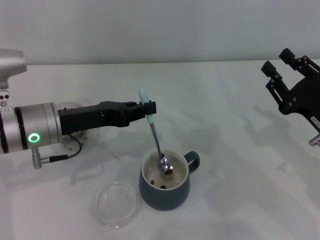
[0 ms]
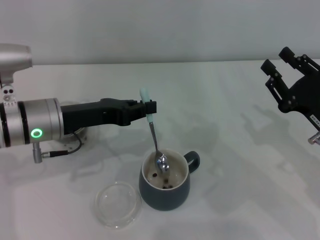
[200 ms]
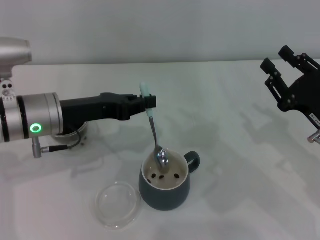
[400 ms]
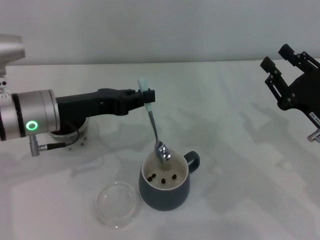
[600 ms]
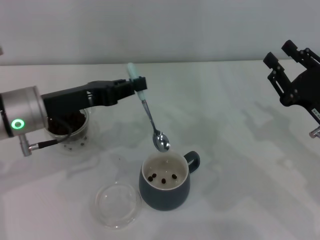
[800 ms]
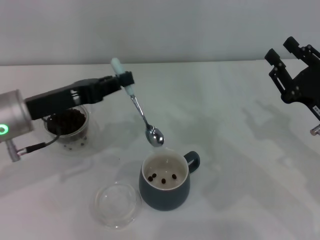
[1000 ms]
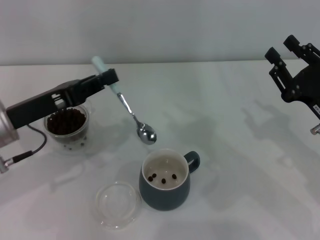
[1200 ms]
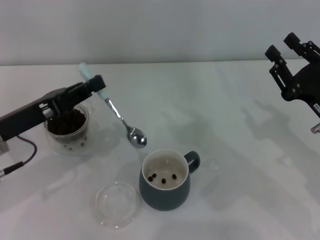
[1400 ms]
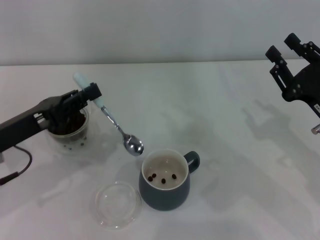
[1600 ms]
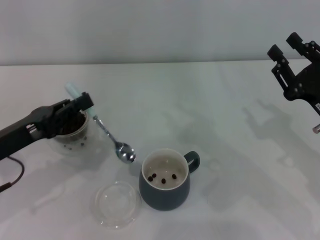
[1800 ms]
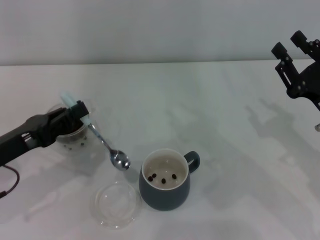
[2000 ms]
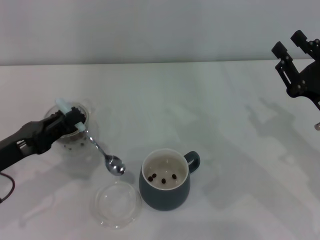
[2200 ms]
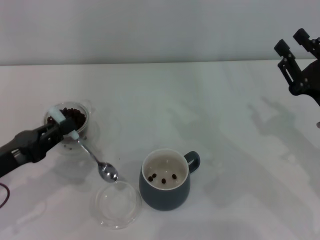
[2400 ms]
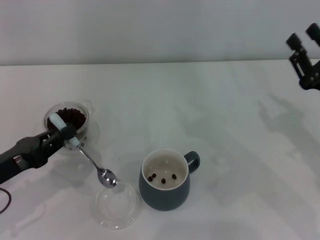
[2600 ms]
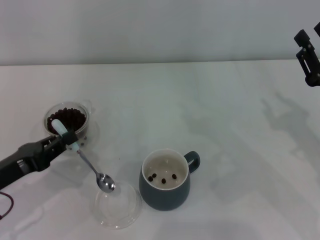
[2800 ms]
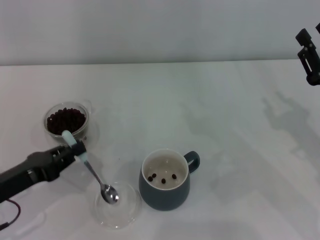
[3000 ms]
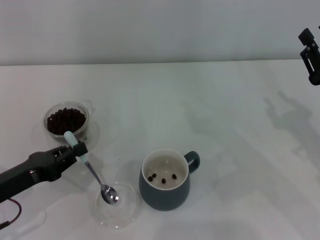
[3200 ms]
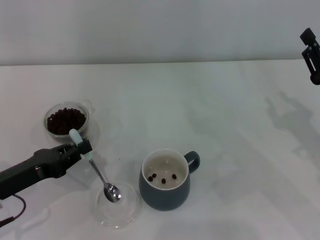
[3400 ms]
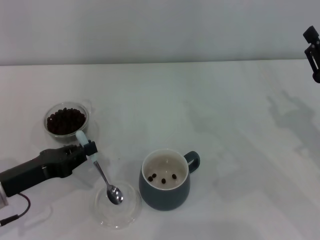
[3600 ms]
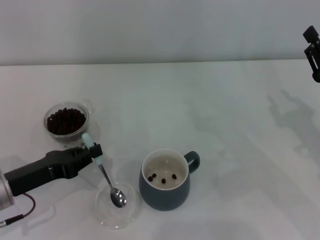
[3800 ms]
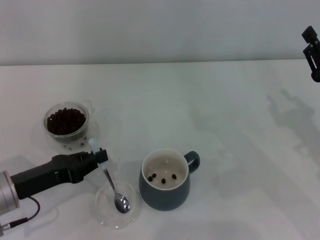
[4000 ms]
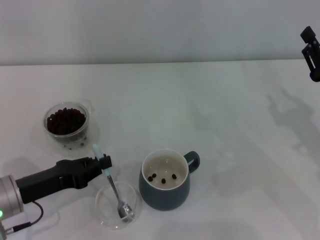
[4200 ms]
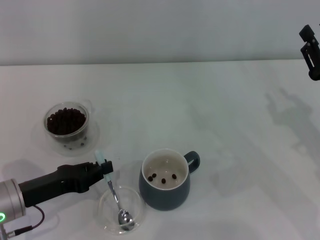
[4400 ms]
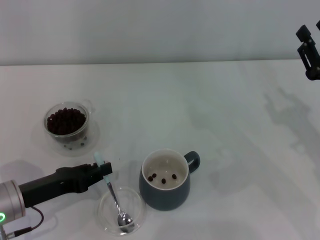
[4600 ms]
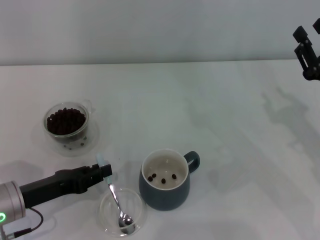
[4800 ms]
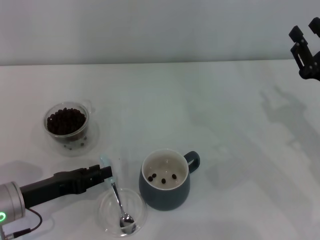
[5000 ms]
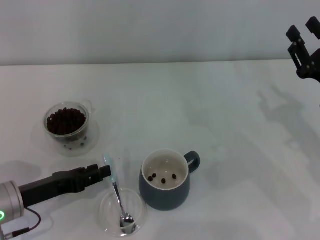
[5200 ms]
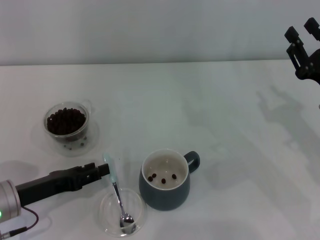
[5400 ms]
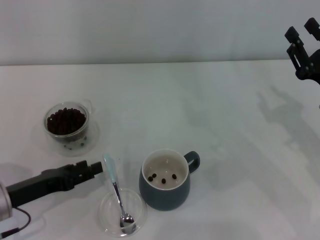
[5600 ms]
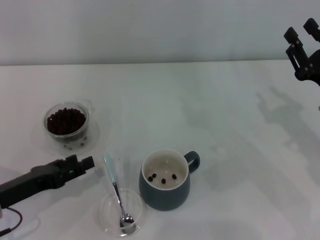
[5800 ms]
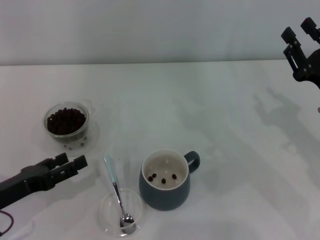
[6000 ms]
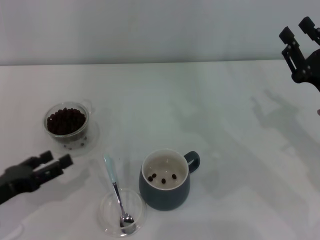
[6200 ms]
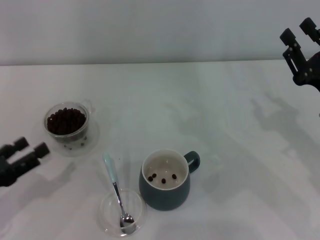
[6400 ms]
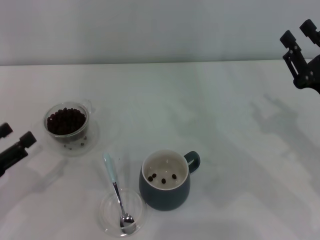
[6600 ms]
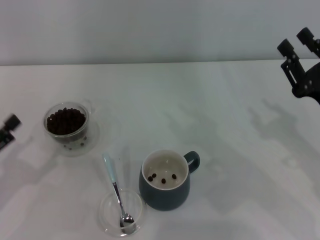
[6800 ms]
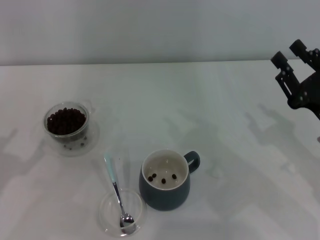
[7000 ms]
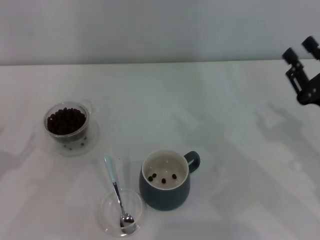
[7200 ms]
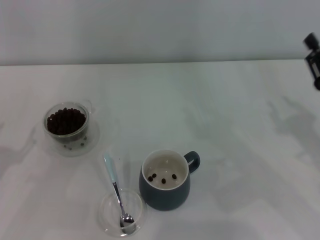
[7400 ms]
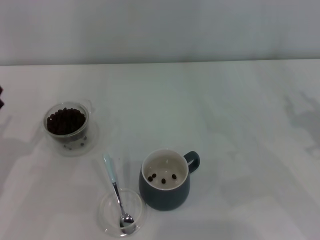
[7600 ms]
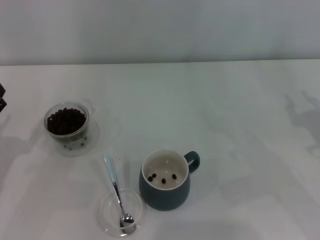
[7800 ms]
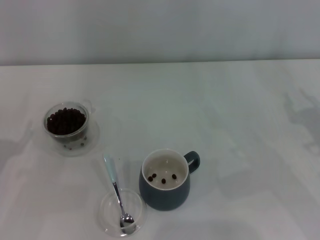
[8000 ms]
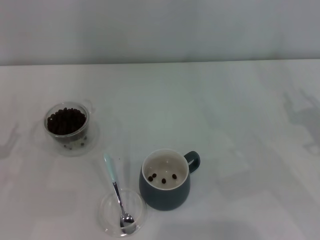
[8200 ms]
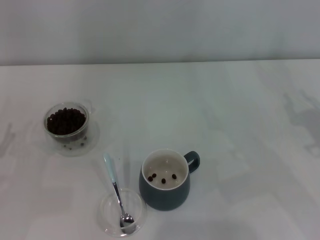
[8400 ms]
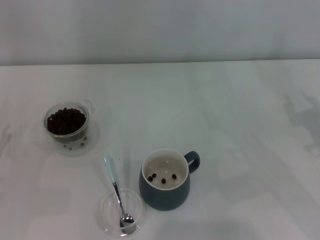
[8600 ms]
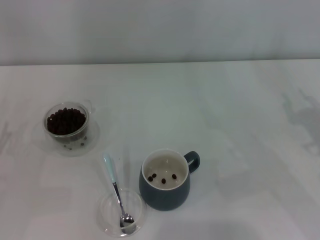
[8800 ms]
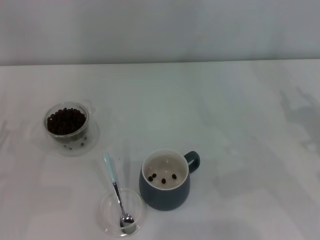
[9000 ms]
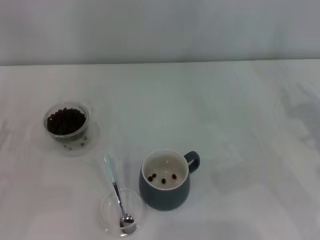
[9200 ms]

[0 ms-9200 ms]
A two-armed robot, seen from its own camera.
Task of the whole recording: Use a blue spoon to take out the coffee beans from the glass and pour them into the gray cup.
Step, 1000 ms to 5600 ms: Place the spoon back in its original place with the right gripper.
0 ms to 1600 ms: The left gripper shifts approximately 5 cm to the left.
1600 ms to 3000 ms: The left gripper moves downward, some 5 cm.
3000 ms to 4600 ms: The grippers stay close to where they were, moving slightly.
4600 ms to 6200 ms: The left gripper travels to the left by about 5 cm, and opens up.

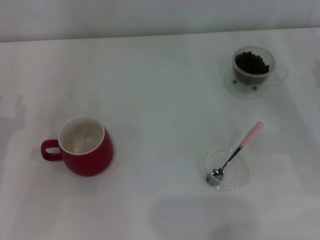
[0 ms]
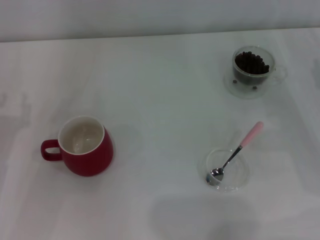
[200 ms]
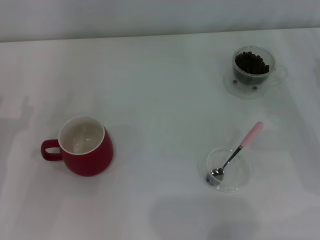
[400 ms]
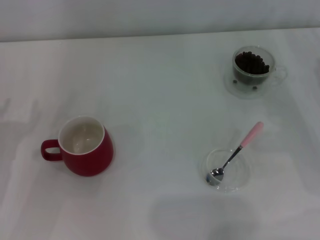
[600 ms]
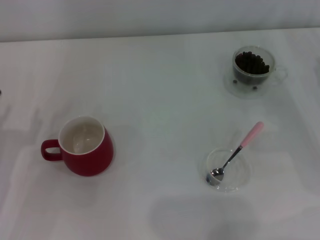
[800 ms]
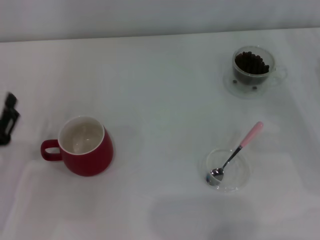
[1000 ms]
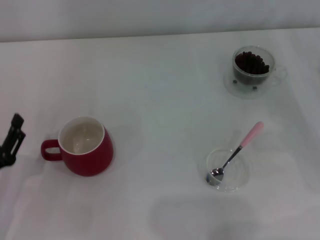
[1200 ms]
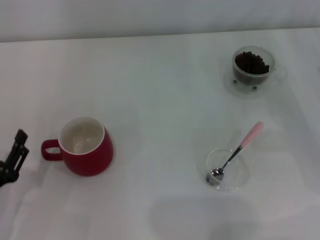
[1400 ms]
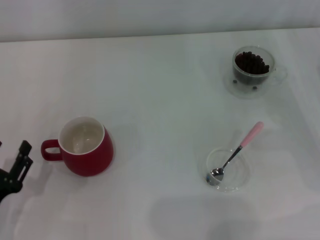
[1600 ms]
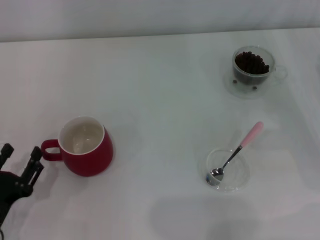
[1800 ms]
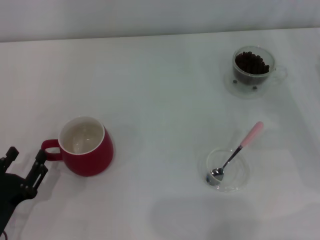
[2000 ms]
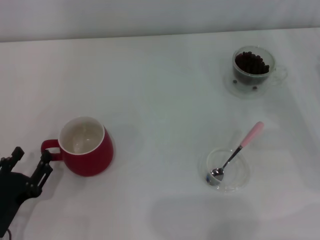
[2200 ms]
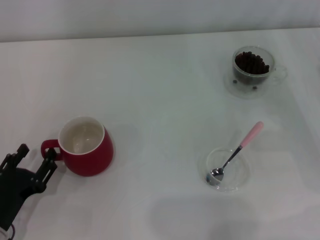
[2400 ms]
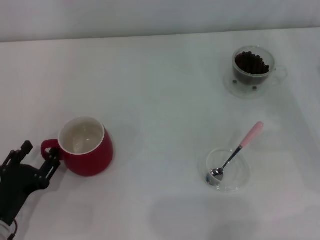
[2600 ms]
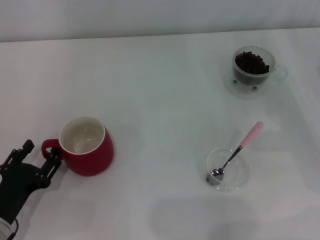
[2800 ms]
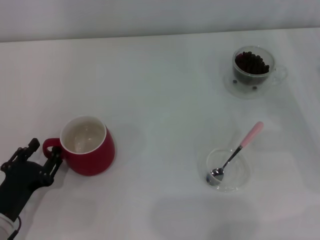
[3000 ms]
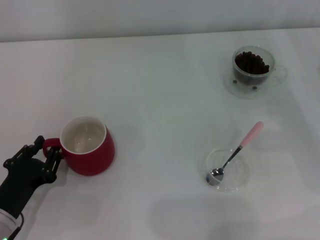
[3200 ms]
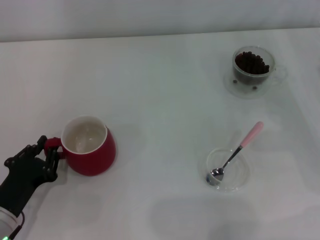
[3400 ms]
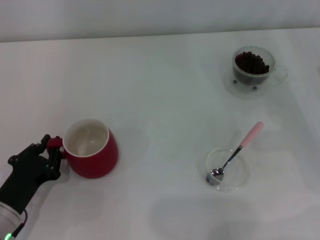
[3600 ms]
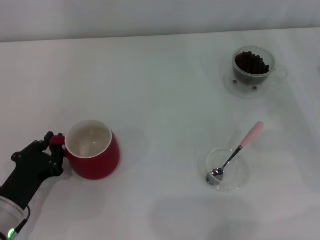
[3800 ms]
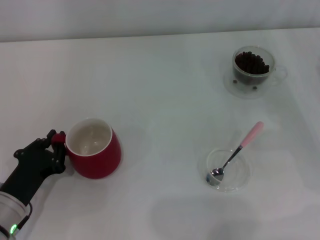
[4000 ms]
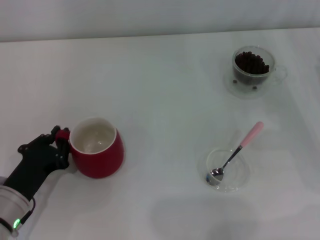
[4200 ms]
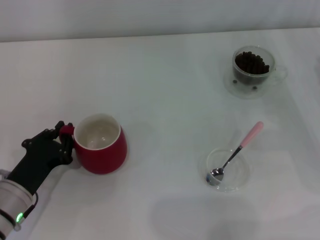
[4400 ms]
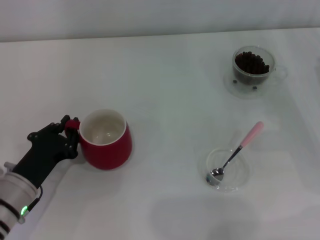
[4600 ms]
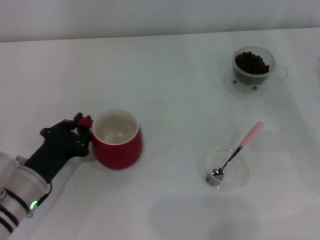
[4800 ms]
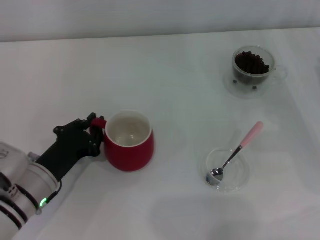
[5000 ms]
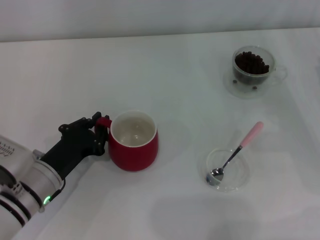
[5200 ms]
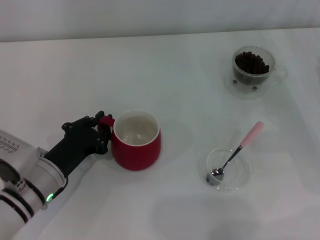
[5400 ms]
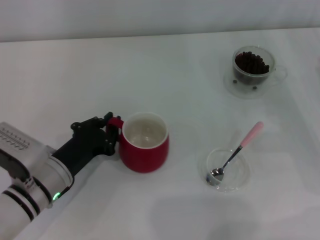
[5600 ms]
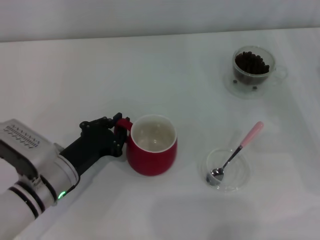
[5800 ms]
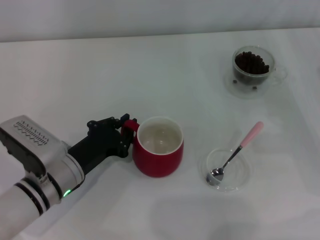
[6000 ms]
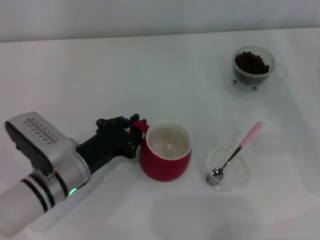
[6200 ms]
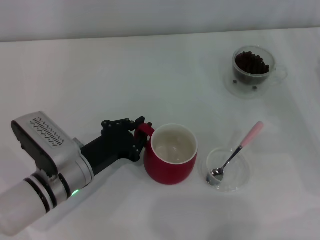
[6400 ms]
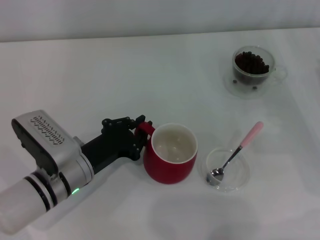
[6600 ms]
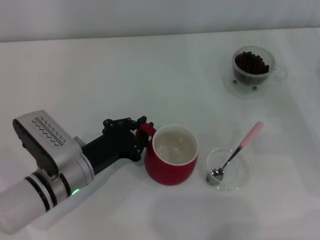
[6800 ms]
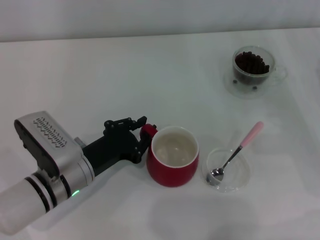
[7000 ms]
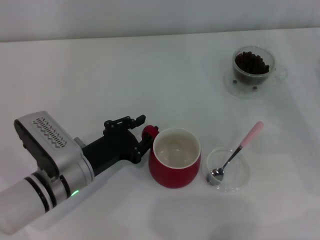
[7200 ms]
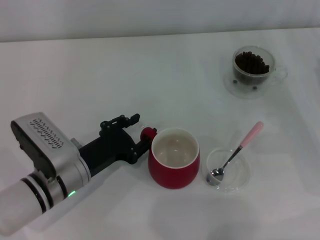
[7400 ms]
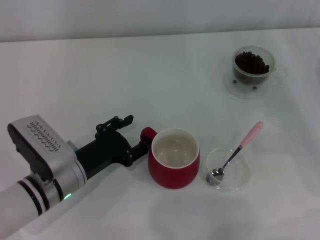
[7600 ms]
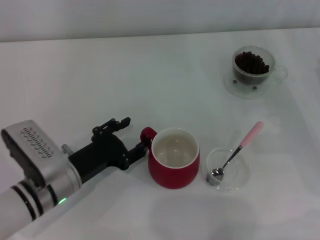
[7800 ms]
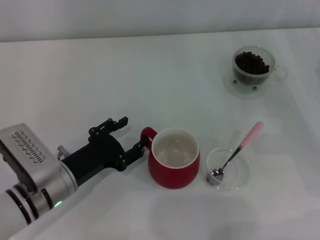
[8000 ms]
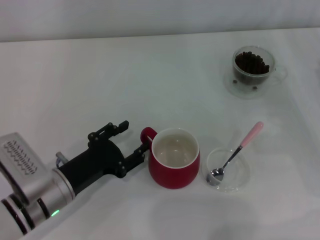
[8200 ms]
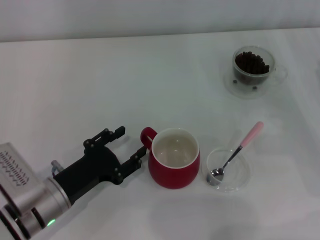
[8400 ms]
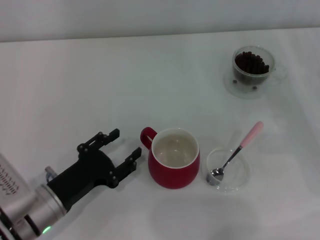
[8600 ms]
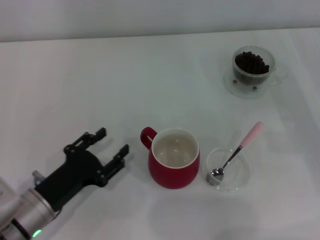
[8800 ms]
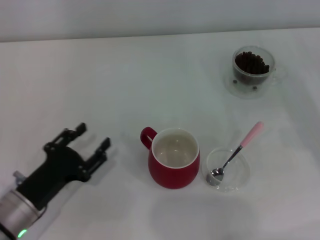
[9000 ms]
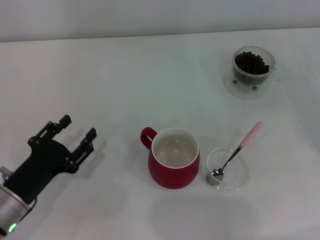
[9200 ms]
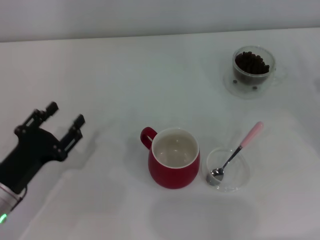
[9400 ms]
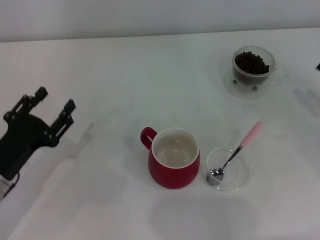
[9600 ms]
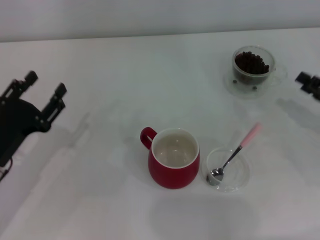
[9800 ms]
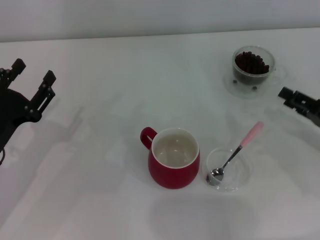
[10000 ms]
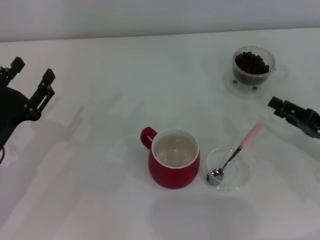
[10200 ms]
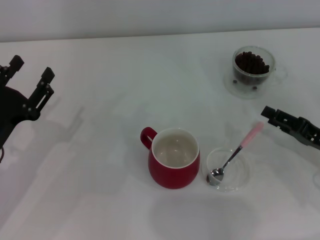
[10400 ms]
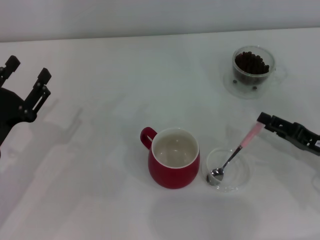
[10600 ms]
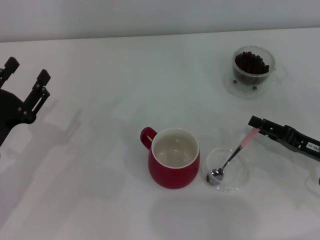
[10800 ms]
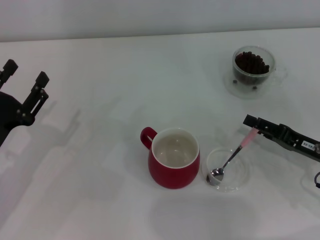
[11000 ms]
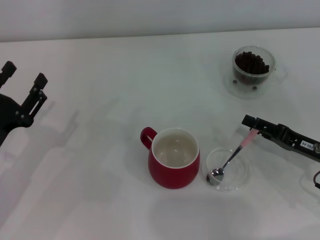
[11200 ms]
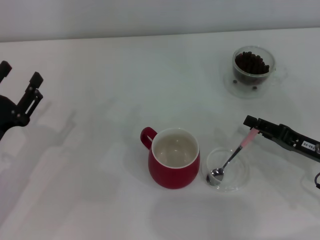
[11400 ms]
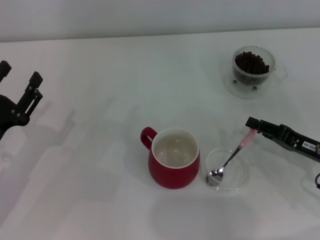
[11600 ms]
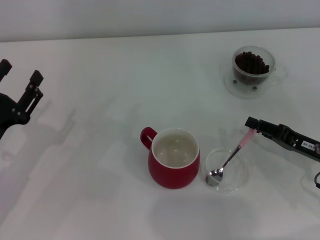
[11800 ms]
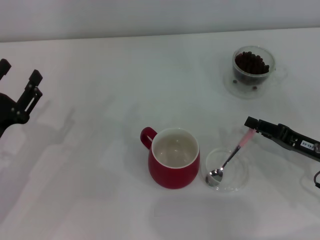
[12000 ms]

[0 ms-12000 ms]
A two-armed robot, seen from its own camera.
Task of the whole recording: Use a pink spoon to take out the coffee beans from the glass and pour them into the red cup.
Step, 0 ms to 8600 ms: Move the cup to the center of view with the left gripper.
0 ms to 1600 ms: The left gripper moves backward and downward, approximately 10 cm, and opens up.
1600 ms to 3000 ms: There are only small adjustments of the grippers.
3000 ms to 4400 ms: The left gripper closes its fingers.
4400 ms to 6000 ms: The left gripper heads to the right, covering about 5 cm.
6000 ms to 7600 ms: The left gripper opens up.
7600 ms to 9000 ms: The left gripper goes about 10 cm to the left and backward.
9000 ms to 10400 ms: The left gripper ends up about 10 cm from where it was; the right gripper moves to the left, about 5 cm.
10400 ms to 12000 ms: The right gripper closes its fingers.

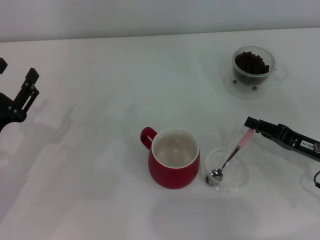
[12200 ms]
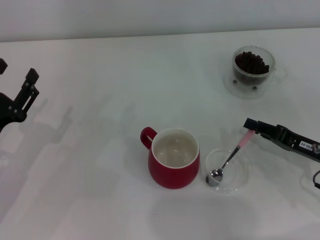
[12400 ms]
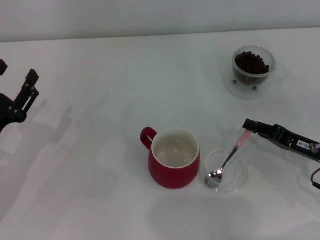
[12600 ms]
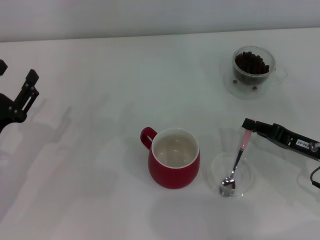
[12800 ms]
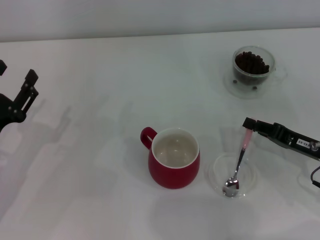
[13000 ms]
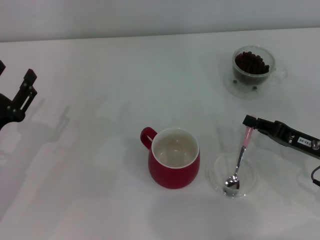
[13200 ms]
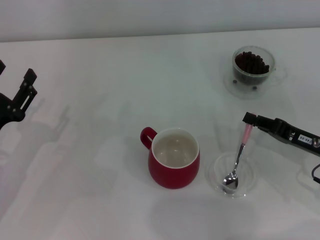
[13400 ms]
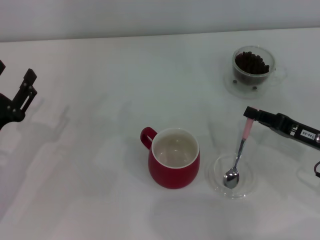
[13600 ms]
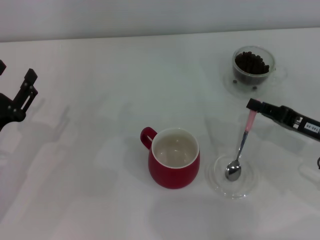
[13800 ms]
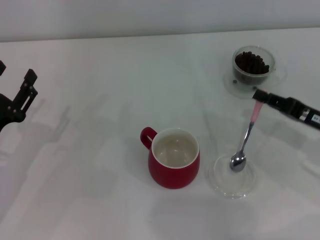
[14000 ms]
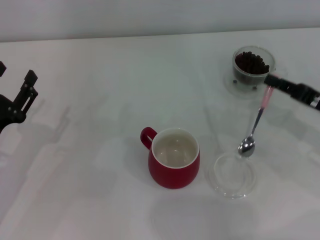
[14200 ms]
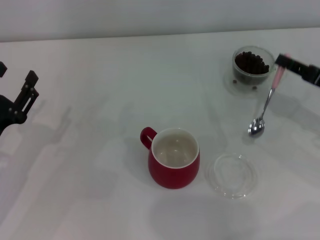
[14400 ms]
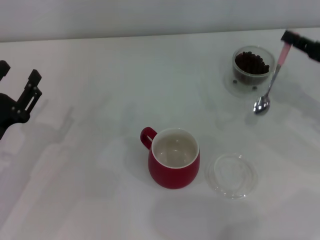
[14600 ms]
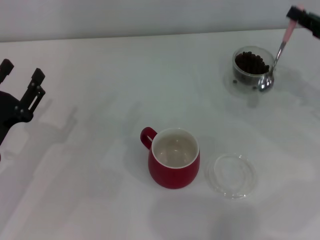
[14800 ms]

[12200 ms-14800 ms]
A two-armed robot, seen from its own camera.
Task of the whole recording: Use a pink spoon to take out the coffee beans from the glass and pour them into the red cup.
12200 ms to 13400 ms: The right gripper closes its fingers.
13400 ms to 14800 ms: The right gripper goes some 15 cm upward, forward and to the right.
